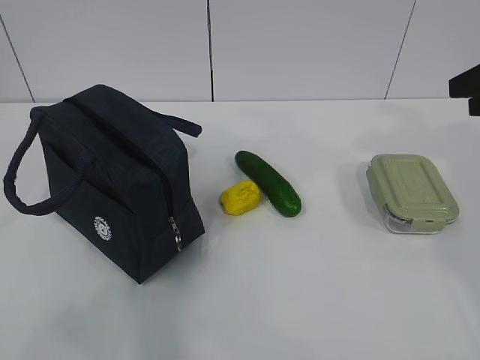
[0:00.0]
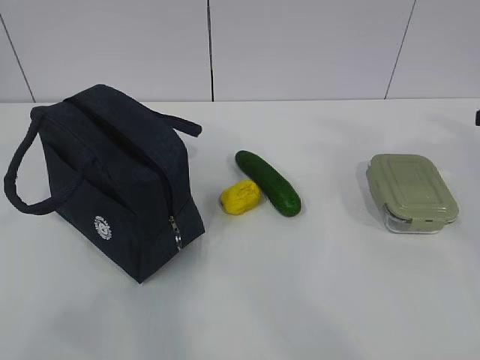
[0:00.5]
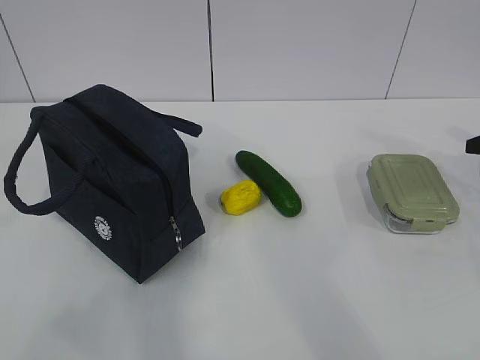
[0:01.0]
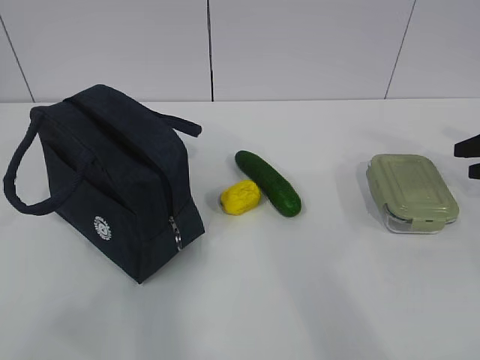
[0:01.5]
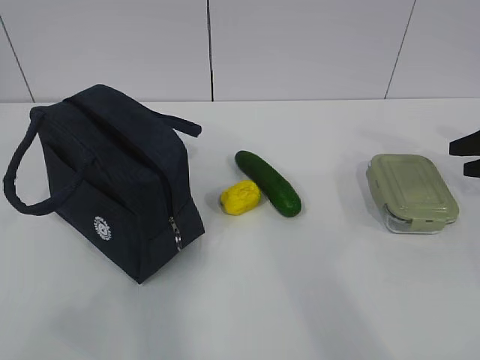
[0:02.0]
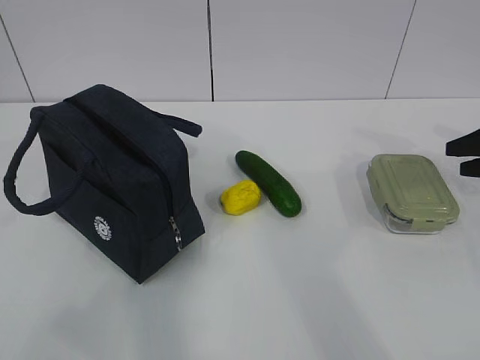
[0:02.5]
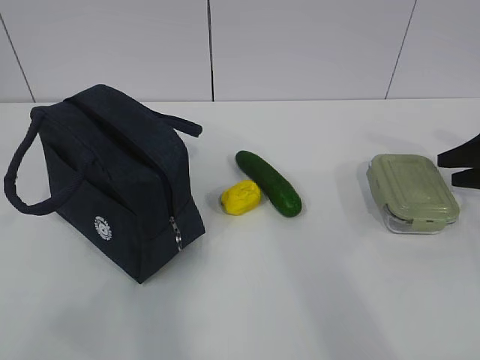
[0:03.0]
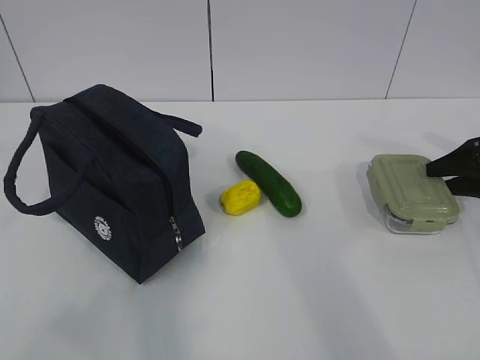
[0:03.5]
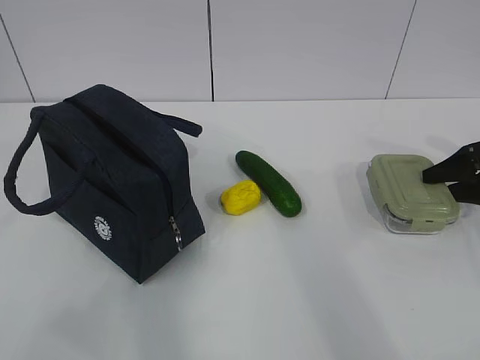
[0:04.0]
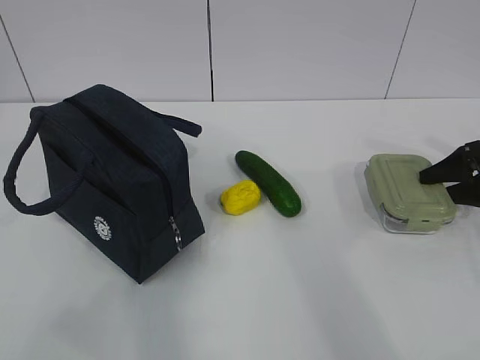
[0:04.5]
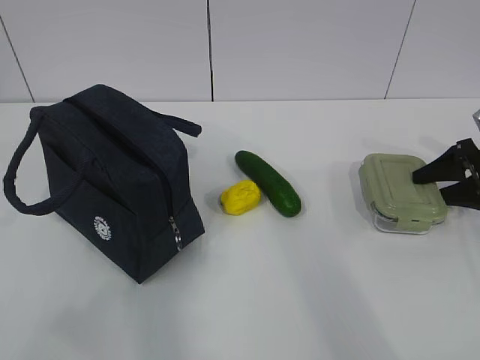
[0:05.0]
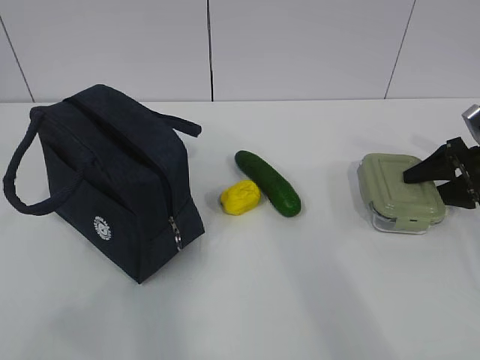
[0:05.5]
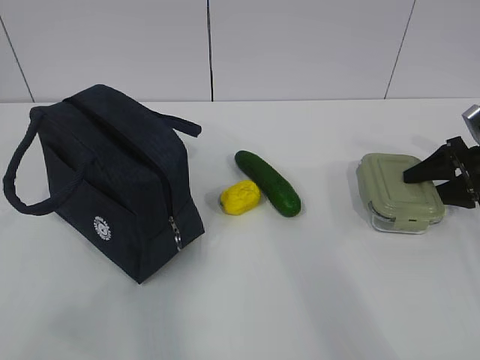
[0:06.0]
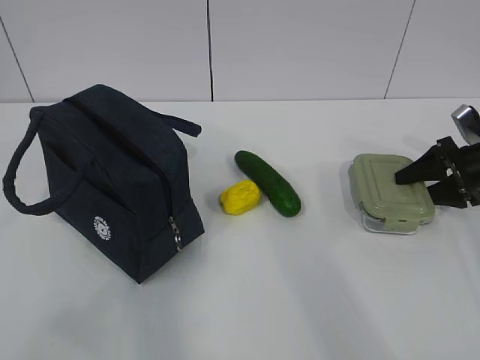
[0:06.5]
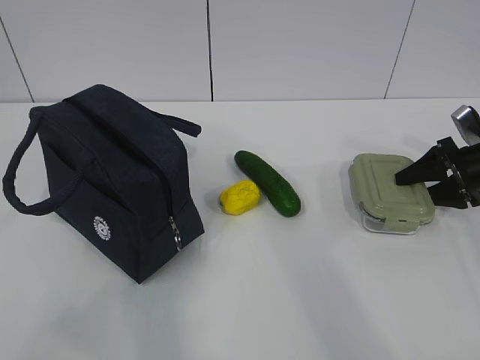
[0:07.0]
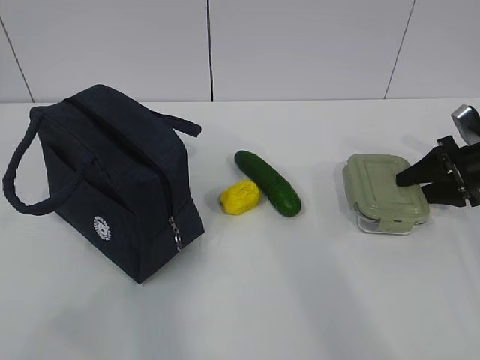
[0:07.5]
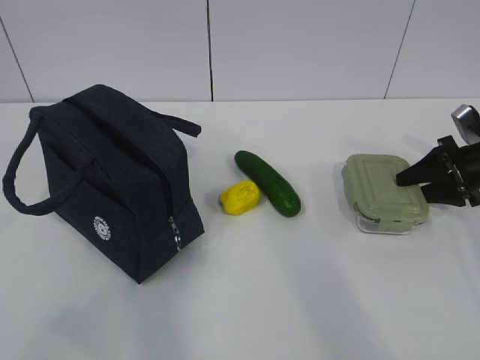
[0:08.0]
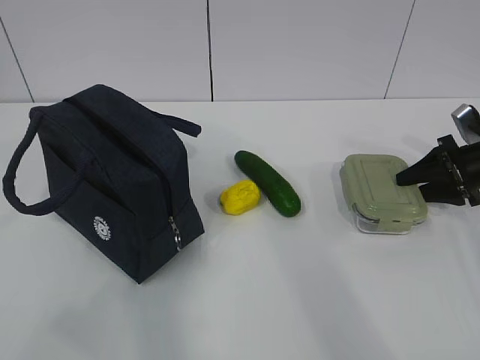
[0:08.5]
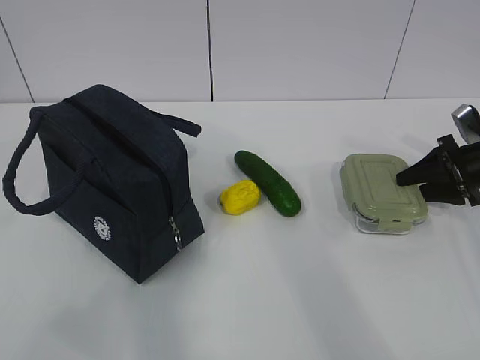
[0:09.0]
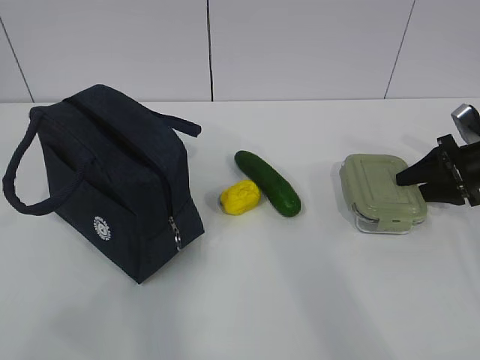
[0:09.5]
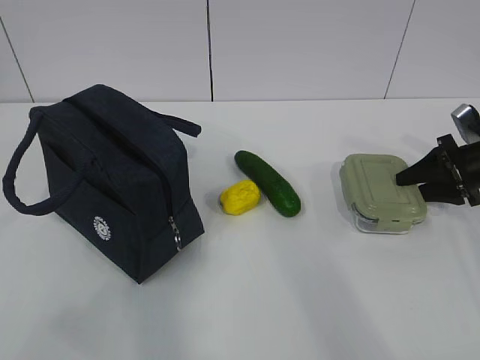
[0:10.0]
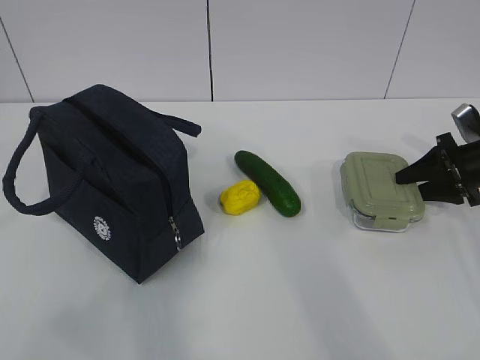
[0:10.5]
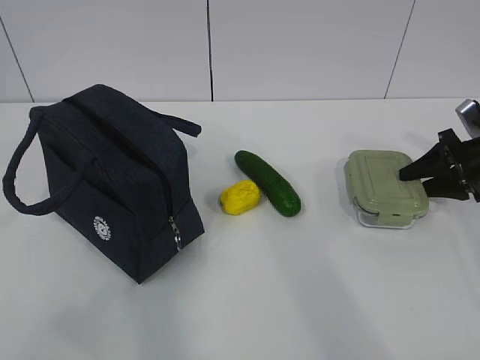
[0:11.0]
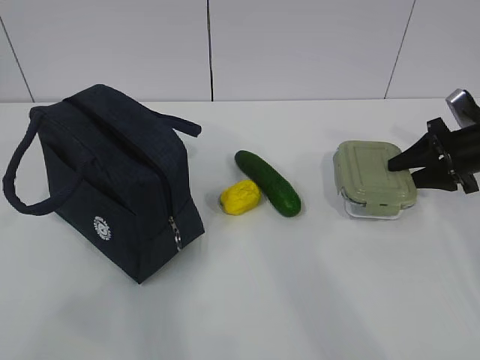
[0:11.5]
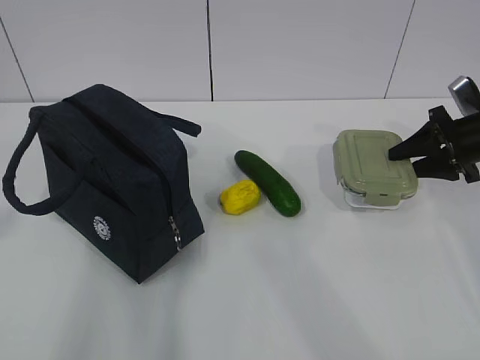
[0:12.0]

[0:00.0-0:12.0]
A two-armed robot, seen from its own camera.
Step, 0:00.0 to 0:08.0: Grab the lunch box with your right hand.
0:00.0 to 0:02.0: The right gripper goes about 15 cm downward, to the right and forward.
0:02.0 to 0:04.0: The right gripper changes place by approximately 5 cm.
0:04.0 to 0:06.0: There are only small adjustments of the grippers.
0:06.0 to 0:10.0: Neither gripper changes place.

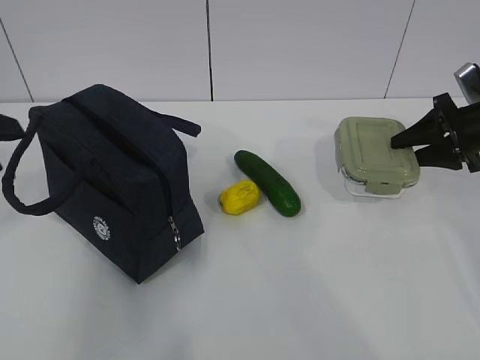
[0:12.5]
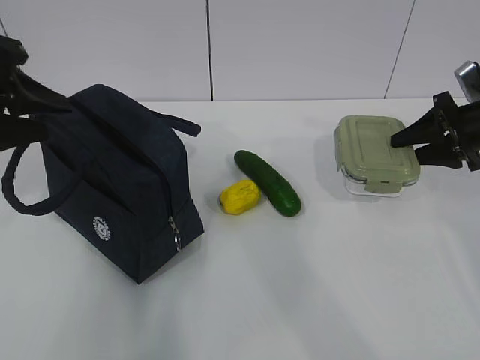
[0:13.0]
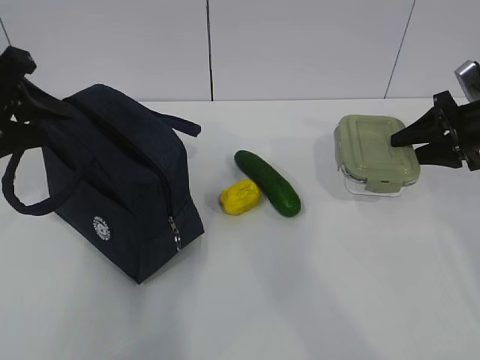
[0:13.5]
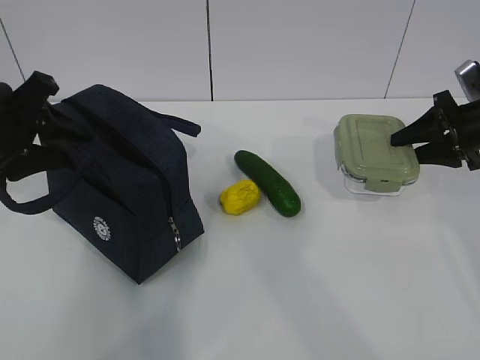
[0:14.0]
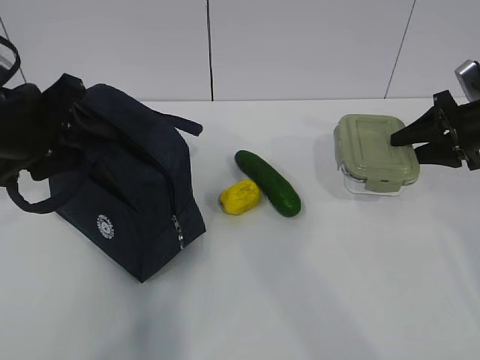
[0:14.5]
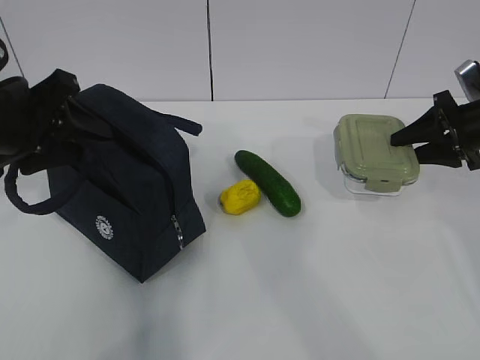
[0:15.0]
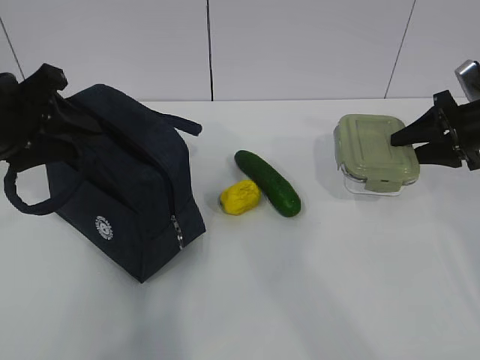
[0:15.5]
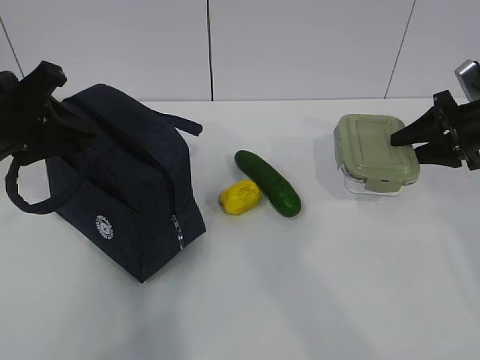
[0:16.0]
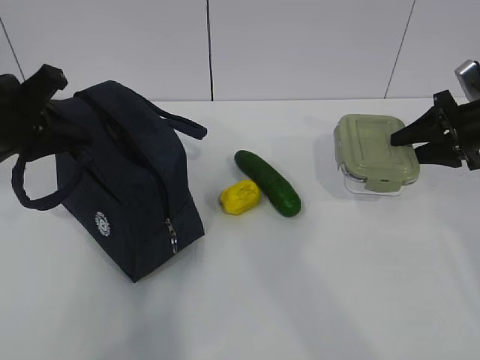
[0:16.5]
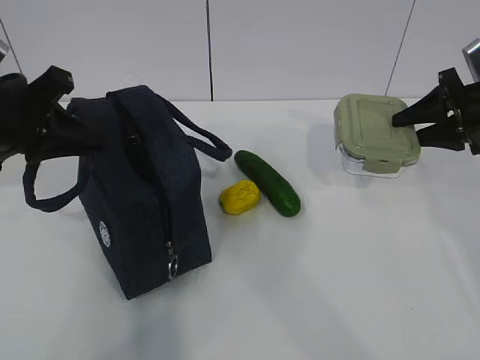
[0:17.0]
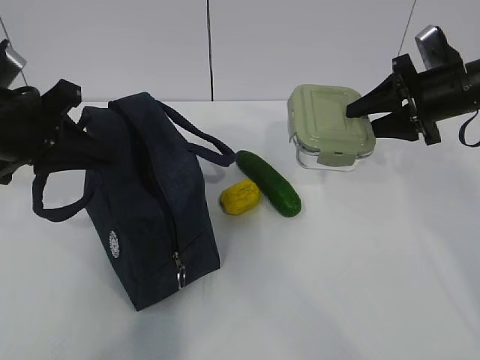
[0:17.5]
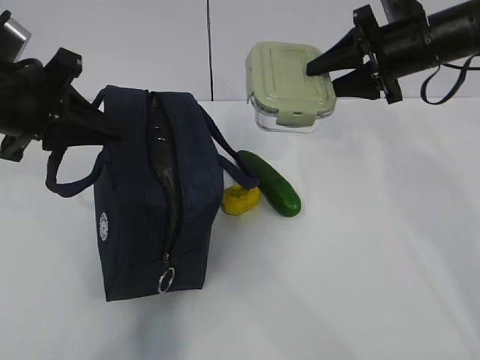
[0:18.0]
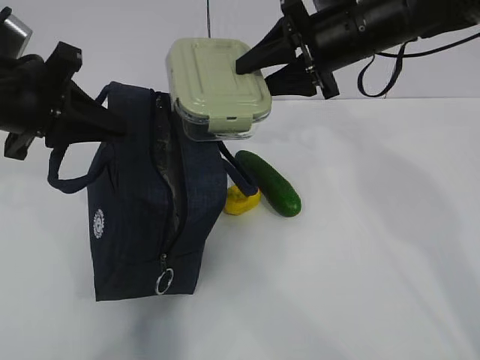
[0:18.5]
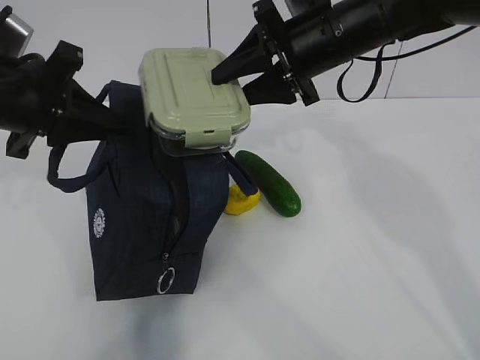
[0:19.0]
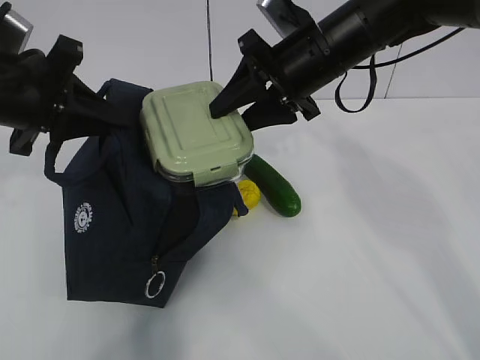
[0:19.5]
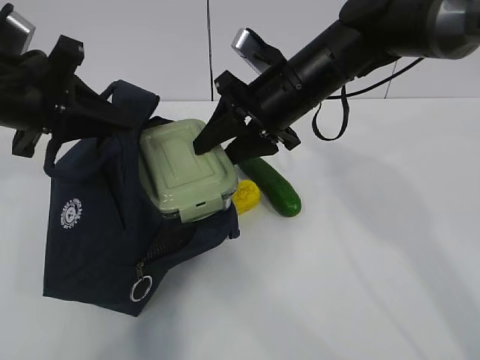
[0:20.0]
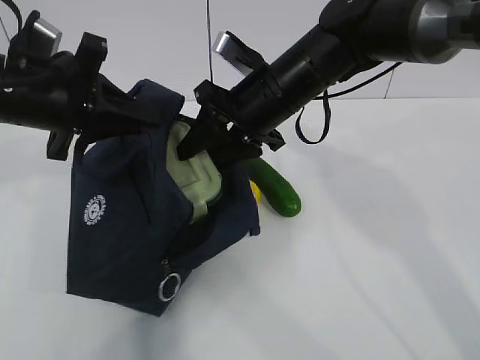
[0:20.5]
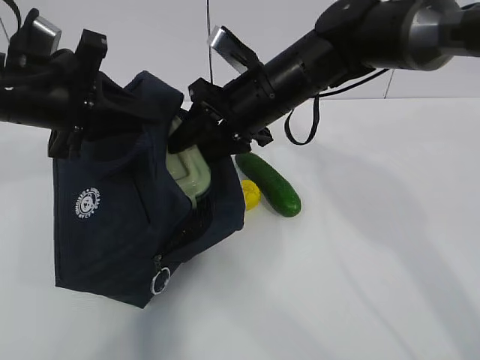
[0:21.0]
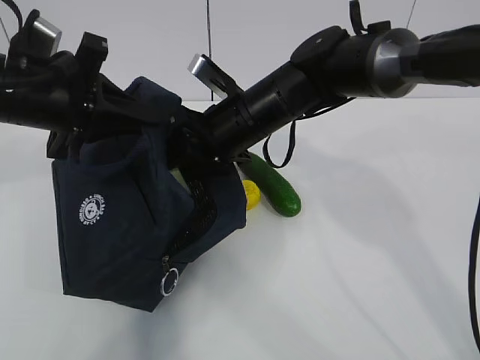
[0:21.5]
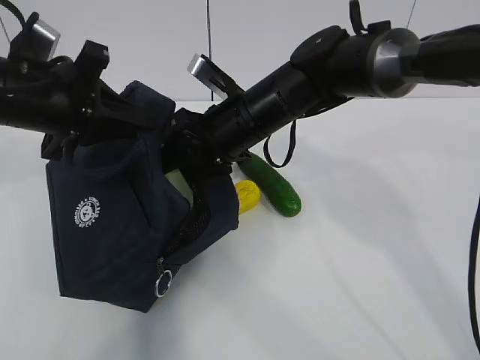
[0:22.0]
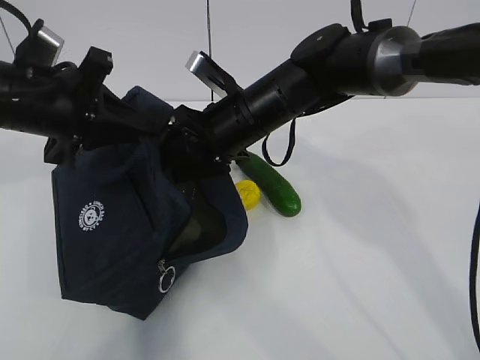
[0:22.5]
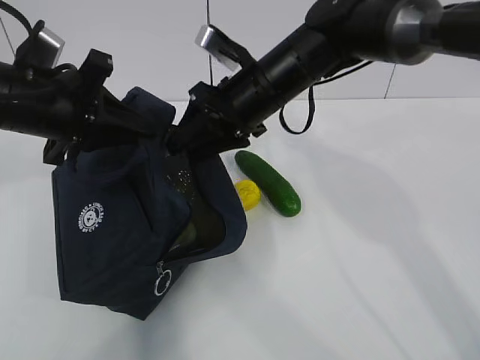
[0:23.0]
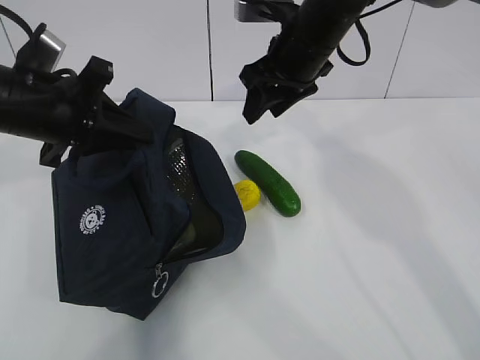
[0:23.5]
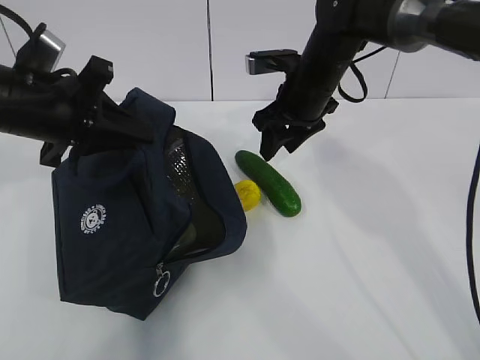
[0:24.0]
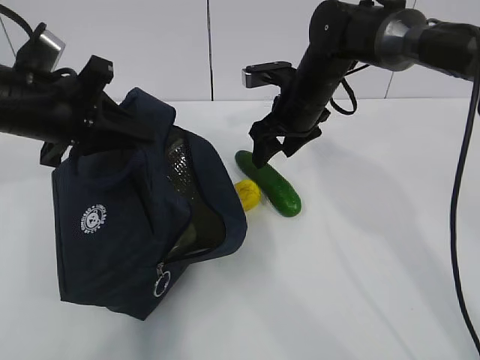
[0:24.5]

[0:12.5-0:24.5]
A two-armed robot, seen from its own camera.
Step, 0:12.5 to 0:14.5: Grab the lunch bag with your left hand.
Step, 0:15.0 to 0:17.5: Place it into the bag with your right hand.
Step, 0:18.0 to 0:20.5: Grab the cucumber with your right hand.
Step, 0:21.0 to 0:23.5: Place it into the bag with your right hand.
0:12.5 to 0:14.5: The left gripper shifts roughly 10 cm forward and downward.
0:14.5 to 0:16.5: The left gripper closes.
0:16.5 to 0:18.5: The right gripper travels to the left and upward by some 25 cm.
0:18.5 to 0:20.5: The right gripper moves to the left and downward, roughly 10 cm.
0:20.5 to 0:22.5: The grippers make only small movements.
0:22.5 to 0:24.5: The right gripper shifts roughly 10 cm forward and to the right, and travels upward and back again, some 5 cm each way.

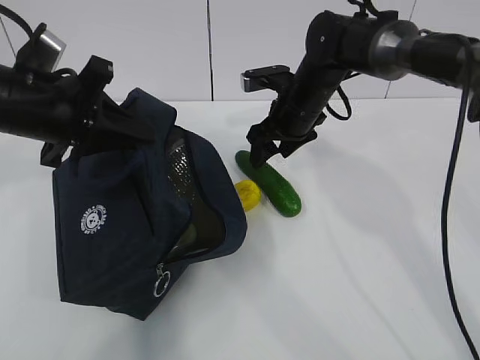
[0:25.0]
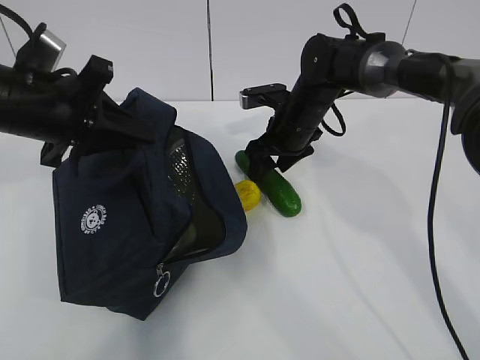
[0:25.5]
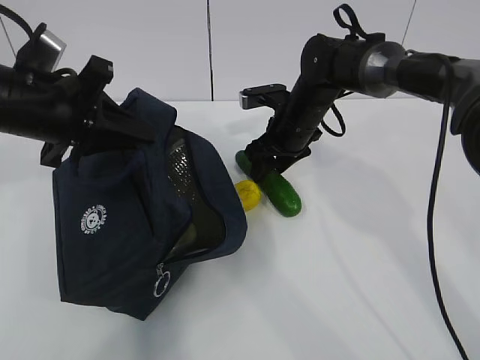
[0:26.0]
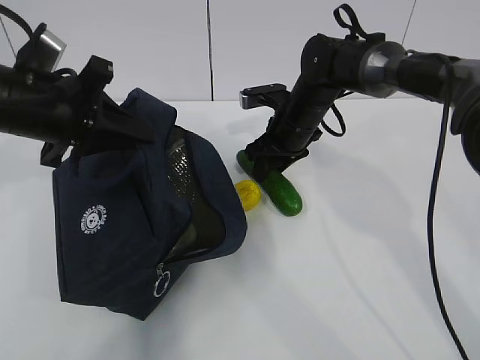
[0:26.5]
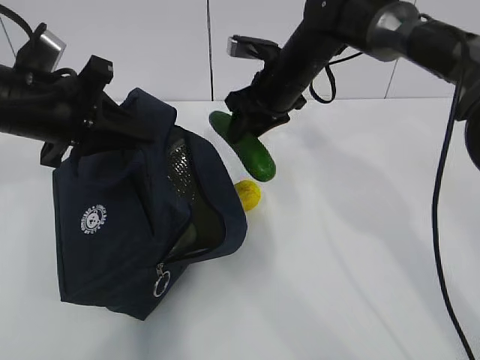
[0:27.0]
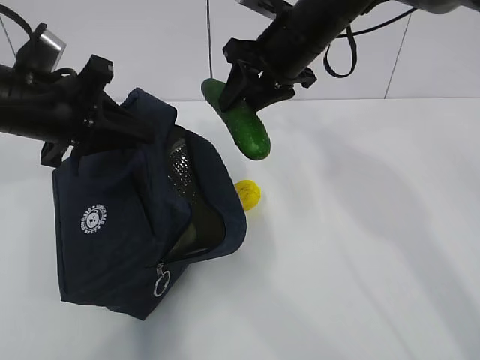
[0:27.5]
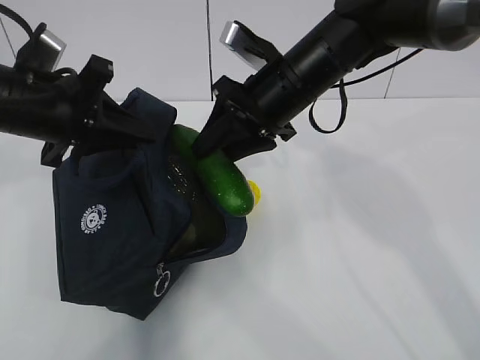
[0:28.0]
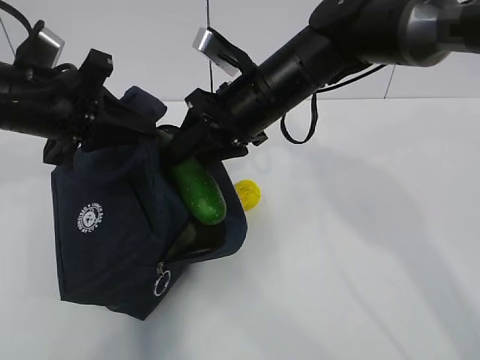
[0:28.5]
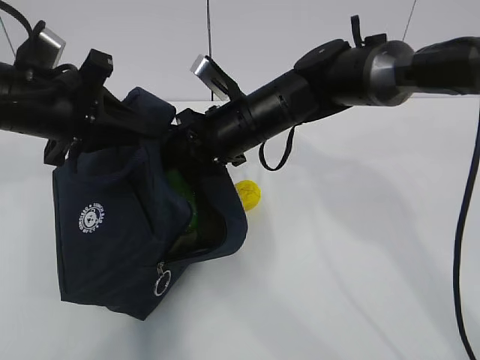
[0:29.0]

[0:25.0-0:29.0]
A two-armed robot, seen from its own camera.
Step, 0:25.0 to 0:28.0: Grab the lemon with your right hand.
0:25.0 to 0:27.0: The right gripper closes its fingers.
0:27.0 to 0:29.0: The right gripper is displaced backward and to the left by roughly 10 cm.
